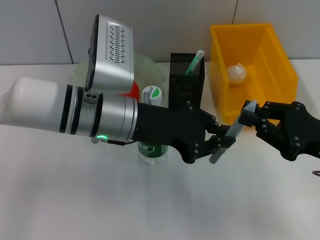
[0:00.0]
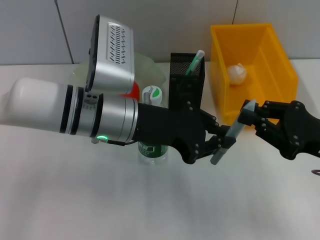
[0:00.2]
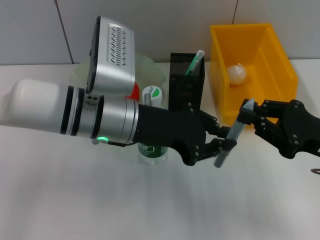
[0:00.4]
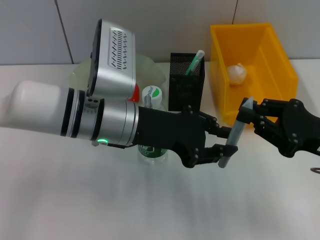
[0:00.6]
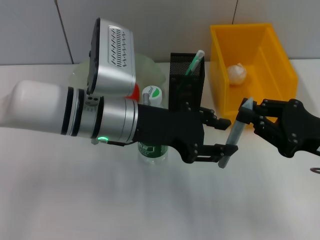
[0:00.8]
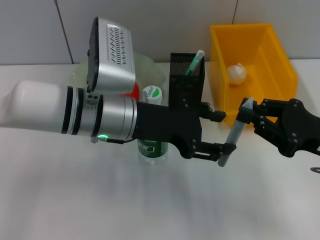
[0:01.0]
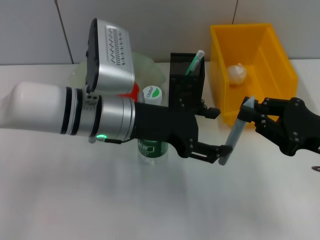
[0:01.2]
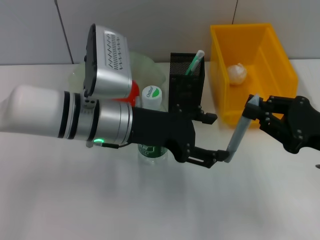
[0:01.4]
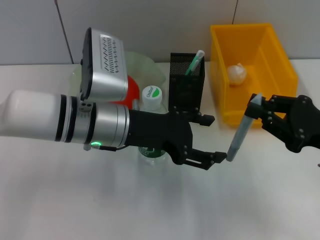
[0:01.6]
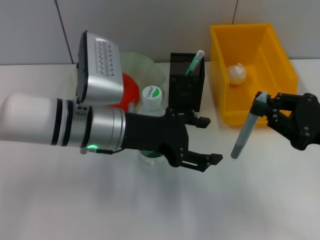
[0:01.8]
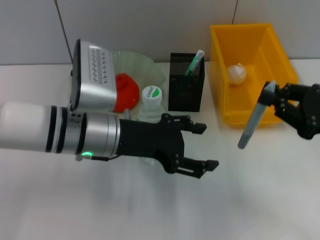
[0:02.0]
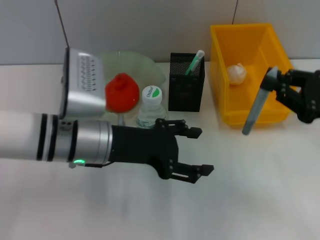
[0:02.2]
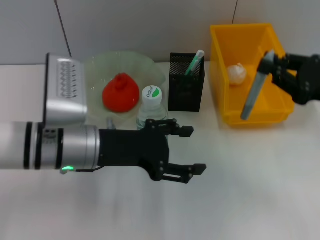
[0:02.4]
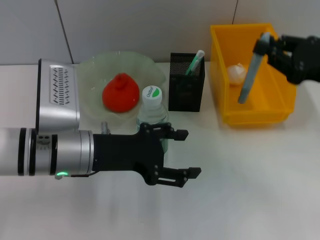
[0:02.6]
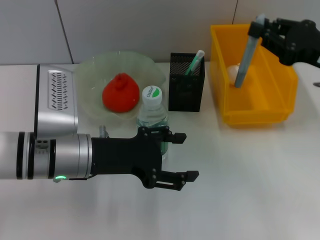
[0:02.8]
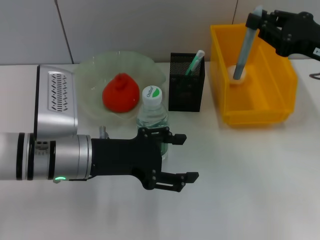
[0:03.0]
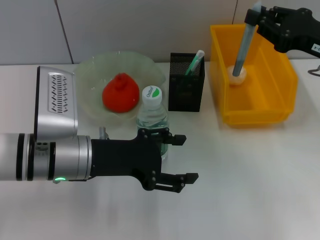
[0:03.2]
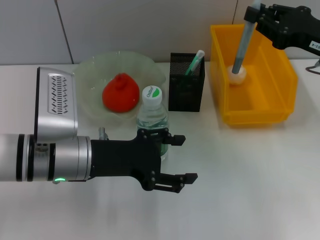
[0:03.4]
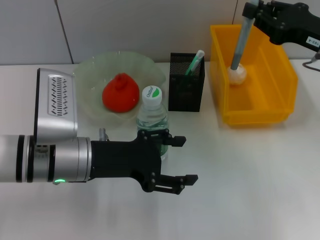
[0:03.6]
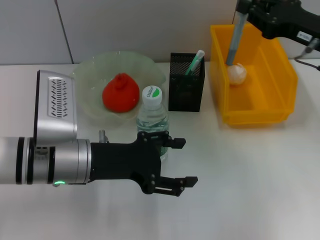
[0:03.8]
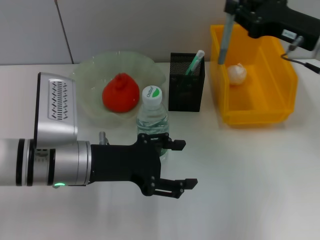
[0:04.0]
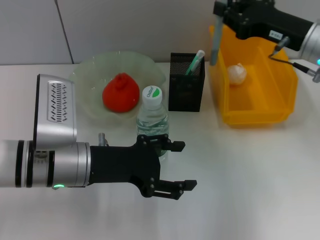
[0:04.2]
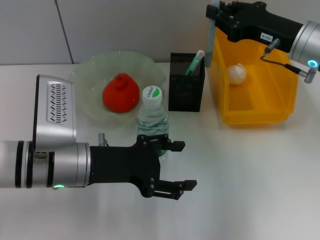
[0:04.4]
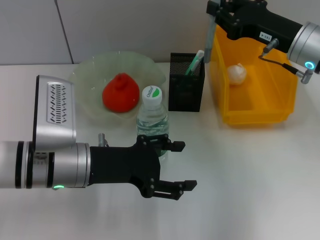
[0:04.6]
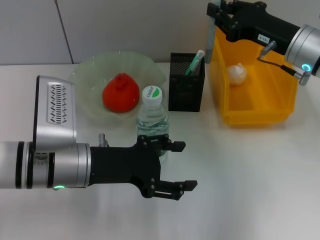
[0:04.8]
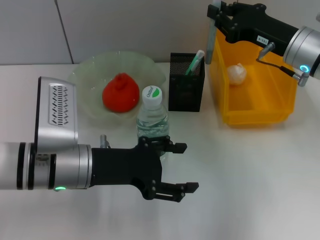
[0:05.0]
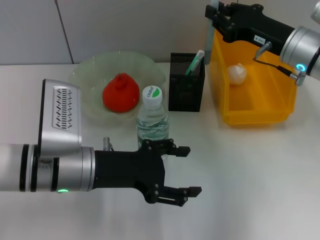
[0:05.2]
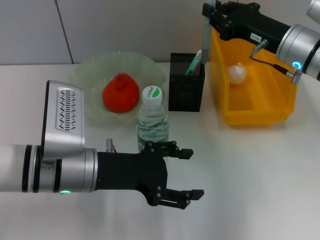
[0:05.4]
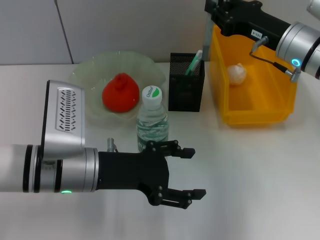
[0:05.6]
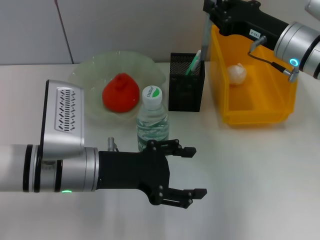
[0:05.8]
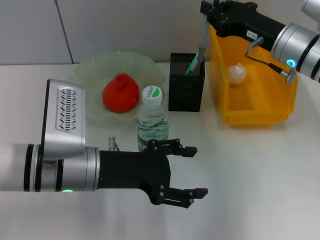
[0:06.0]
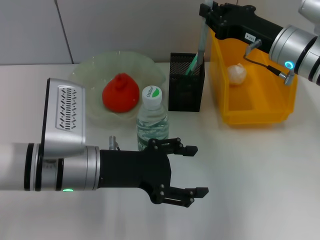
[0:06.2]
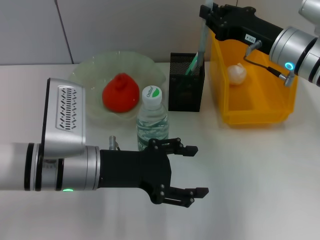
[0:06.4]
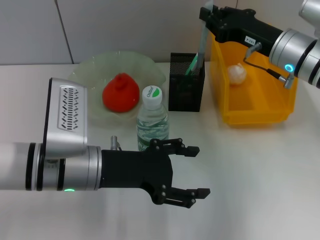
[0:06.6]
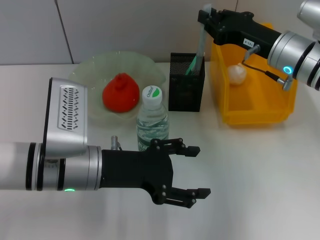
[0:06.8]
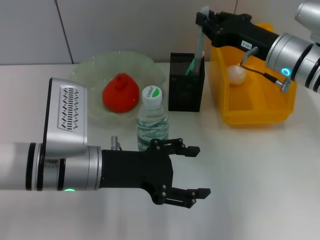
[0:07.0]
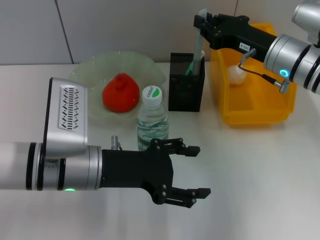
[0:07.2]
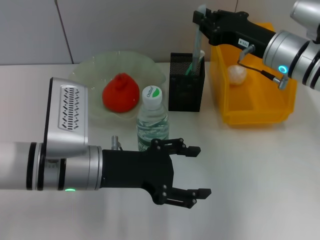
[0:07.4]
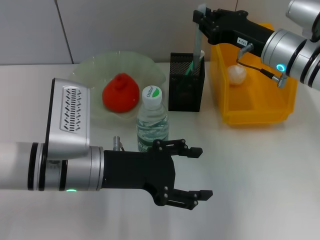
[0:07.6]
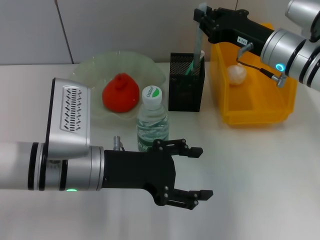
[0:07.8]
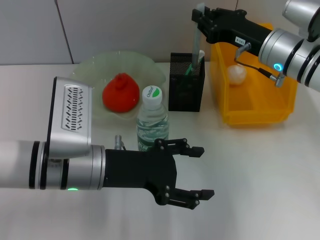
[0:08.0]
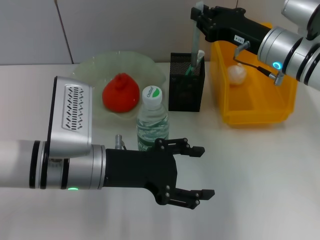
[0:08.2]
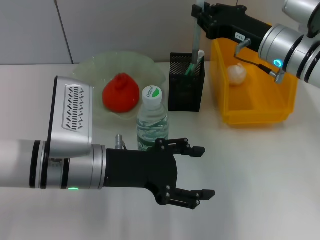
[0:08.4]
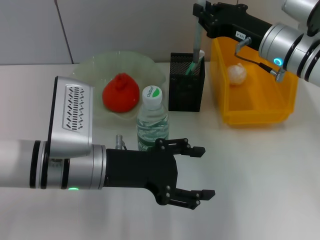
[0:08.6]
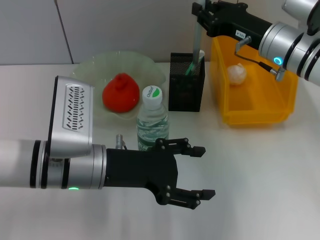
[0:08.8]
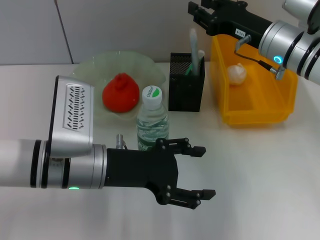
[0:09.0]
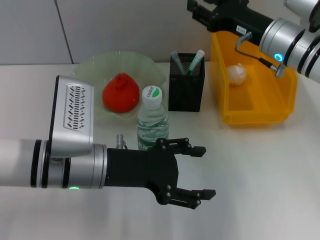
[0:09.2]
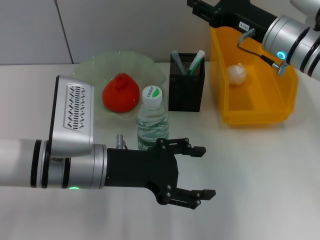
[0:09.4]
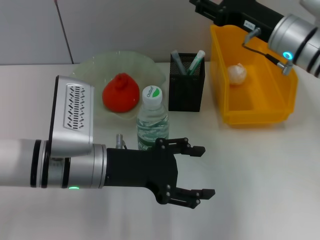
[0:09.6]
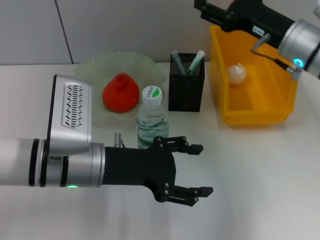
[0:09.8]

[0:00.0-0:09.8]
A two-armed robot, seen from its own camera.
Step, 0:01.2 to 0:09.4: Place the gray glue into the pen holder with the right hand.
0:00.0 to 0:01.4: The left gripper opens up.
0:01.4 to 0:02.8: The left gripper goes about 5 cm to the left, while the right gripper goes approximately 10 cm forward and upward.
0:02.8 to 0:04.2: The right gripper goes some 5 cm to the left and forward.
0:04.2 to 0:08.4: The grippers make only small movements.
0:08.4 to 0:09.8: The right gripper opens up.

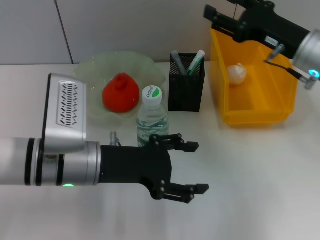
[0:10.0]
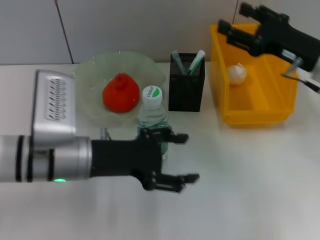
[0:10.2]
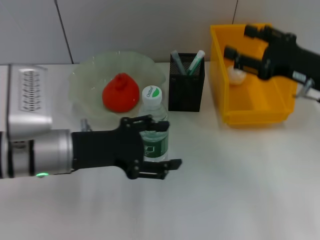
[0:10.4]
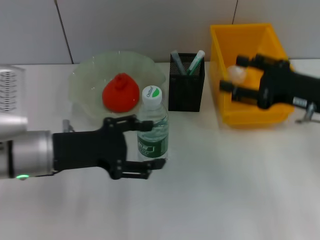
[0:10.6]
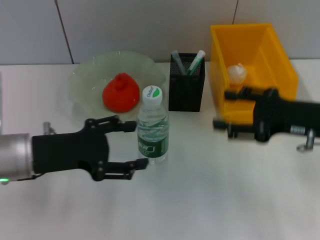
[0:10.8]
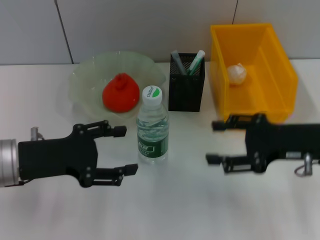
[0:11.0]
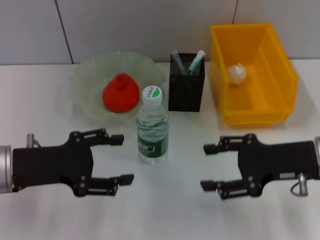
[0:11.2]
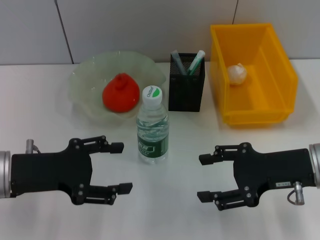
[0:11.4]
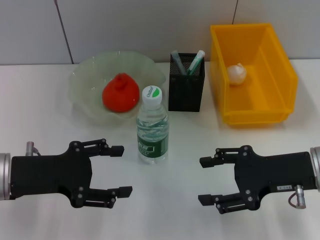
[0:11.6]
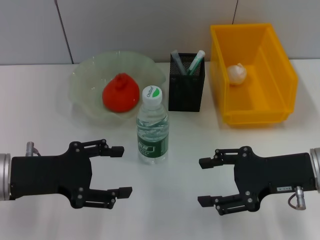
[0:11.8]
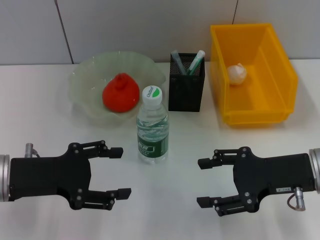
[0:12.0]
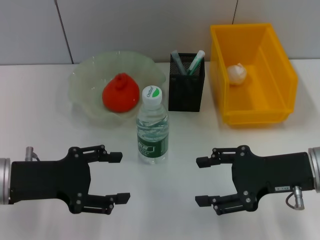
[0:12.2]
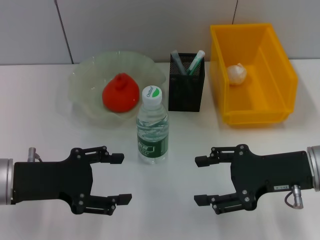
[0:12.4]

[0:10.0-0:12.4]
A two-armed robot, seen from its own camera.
0:10.0 to 0:11.2: The left gripper is displaced to the left by about 10 cm. The right gripper goes roughly 10 cm backward.
0:11.2 to 0:12.4: There are only small adjustments of the grippers.

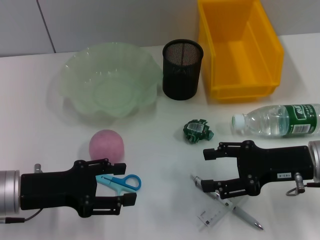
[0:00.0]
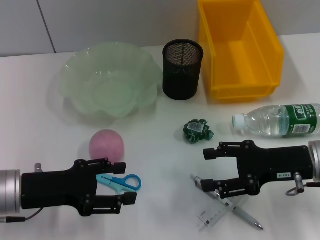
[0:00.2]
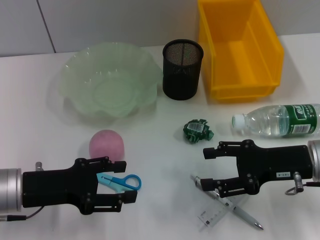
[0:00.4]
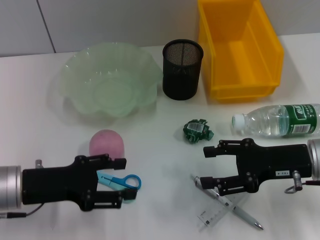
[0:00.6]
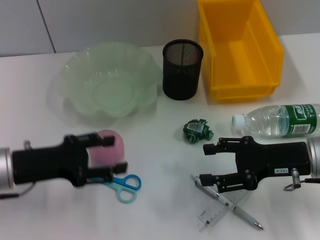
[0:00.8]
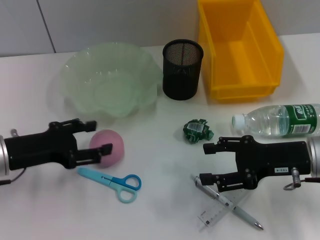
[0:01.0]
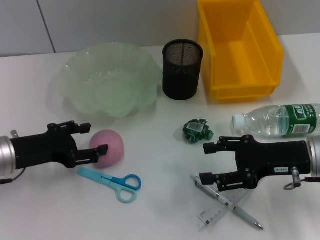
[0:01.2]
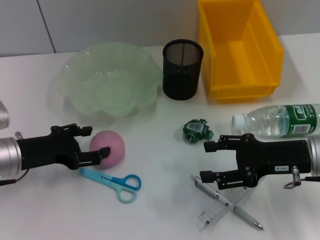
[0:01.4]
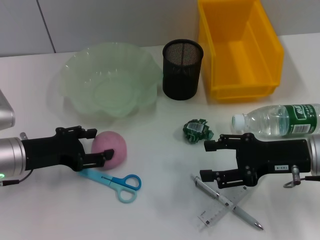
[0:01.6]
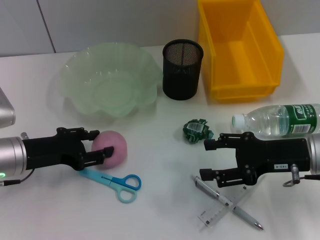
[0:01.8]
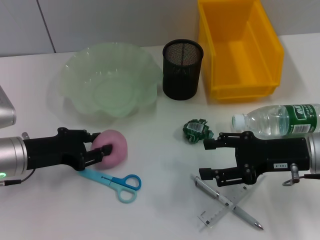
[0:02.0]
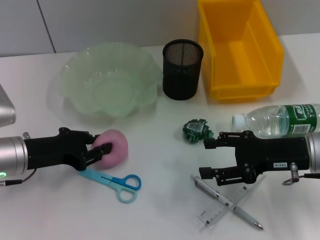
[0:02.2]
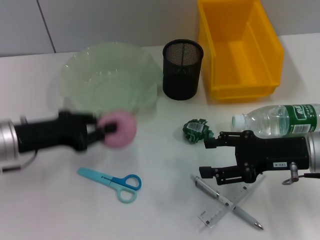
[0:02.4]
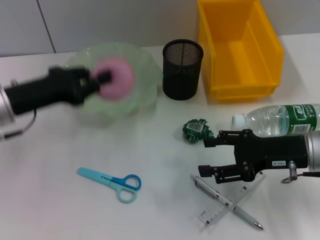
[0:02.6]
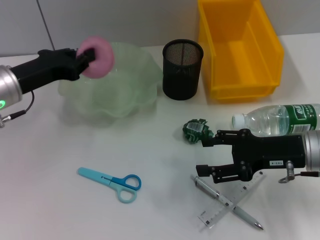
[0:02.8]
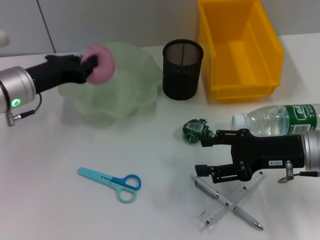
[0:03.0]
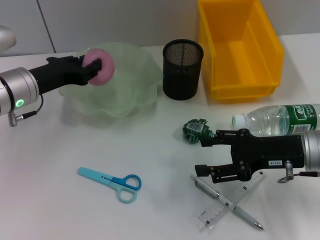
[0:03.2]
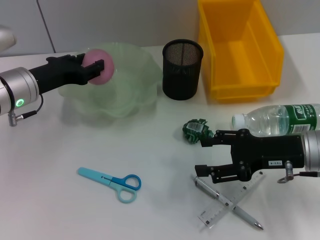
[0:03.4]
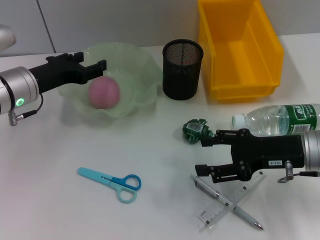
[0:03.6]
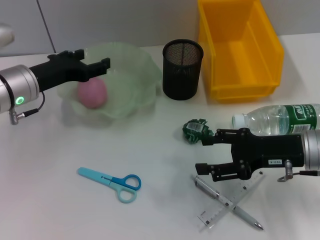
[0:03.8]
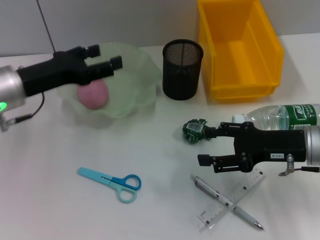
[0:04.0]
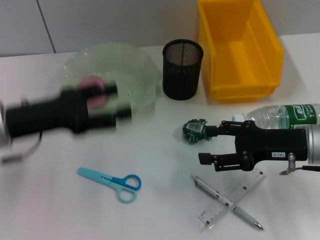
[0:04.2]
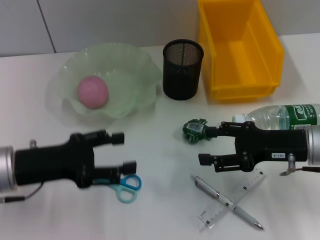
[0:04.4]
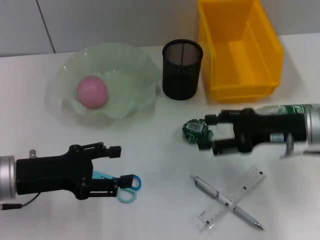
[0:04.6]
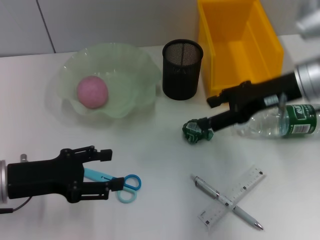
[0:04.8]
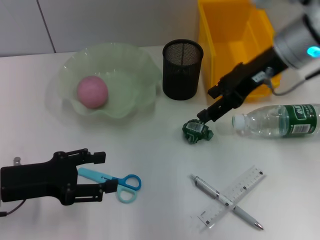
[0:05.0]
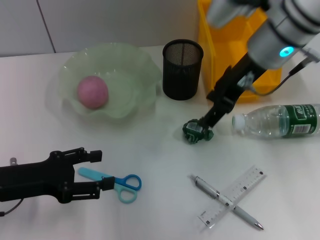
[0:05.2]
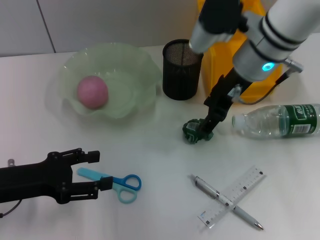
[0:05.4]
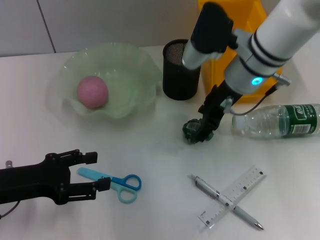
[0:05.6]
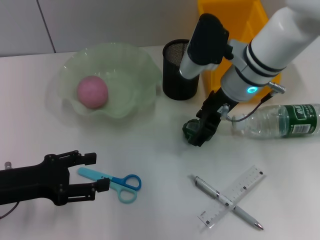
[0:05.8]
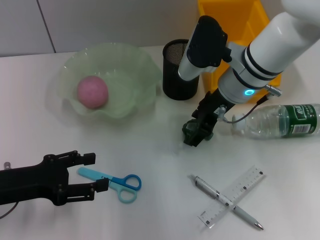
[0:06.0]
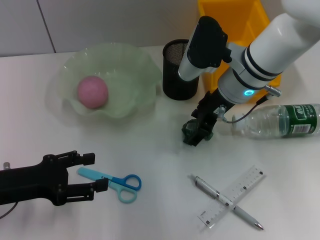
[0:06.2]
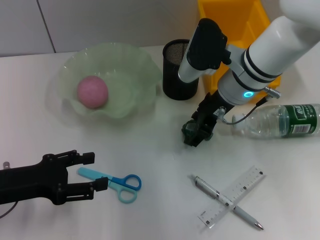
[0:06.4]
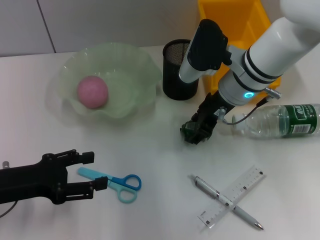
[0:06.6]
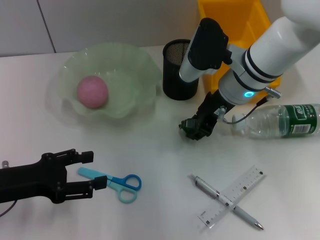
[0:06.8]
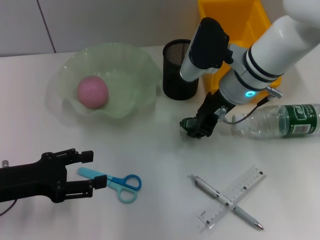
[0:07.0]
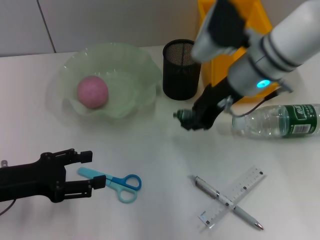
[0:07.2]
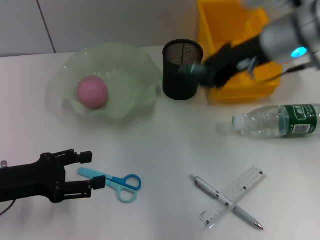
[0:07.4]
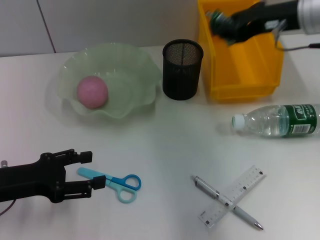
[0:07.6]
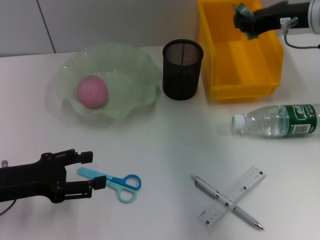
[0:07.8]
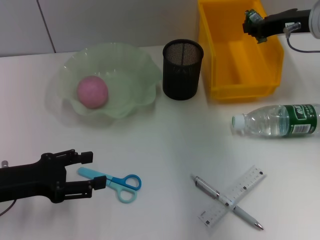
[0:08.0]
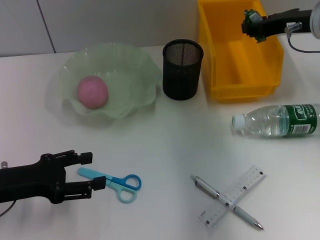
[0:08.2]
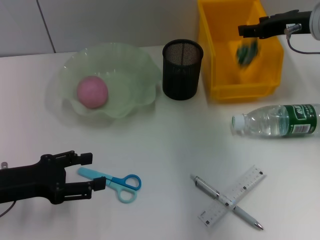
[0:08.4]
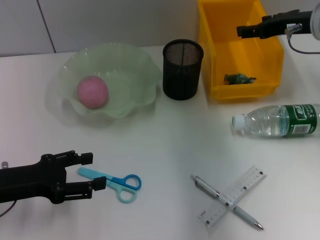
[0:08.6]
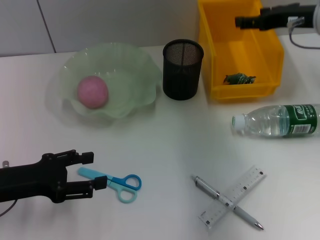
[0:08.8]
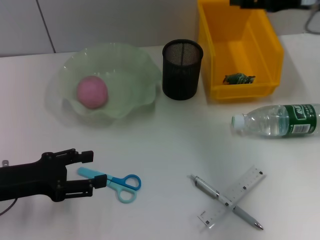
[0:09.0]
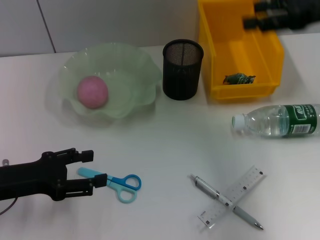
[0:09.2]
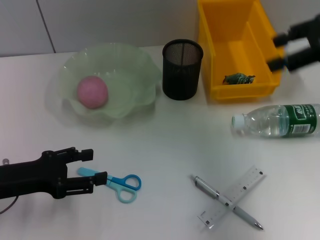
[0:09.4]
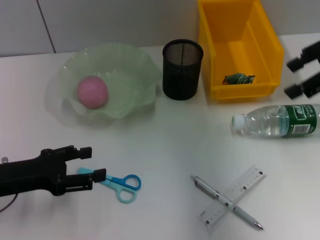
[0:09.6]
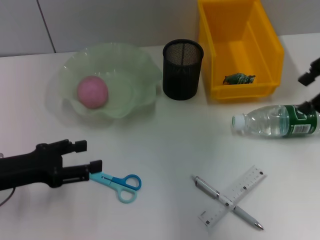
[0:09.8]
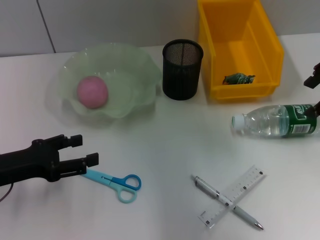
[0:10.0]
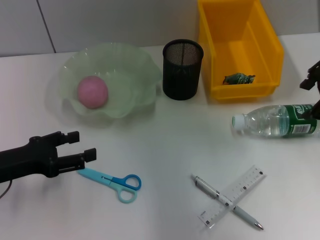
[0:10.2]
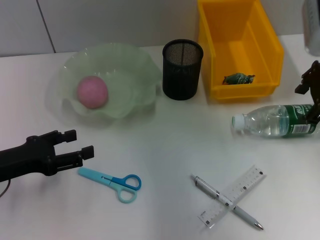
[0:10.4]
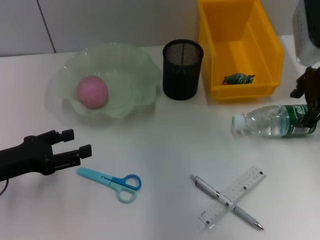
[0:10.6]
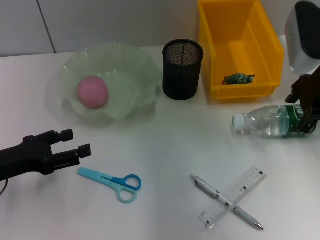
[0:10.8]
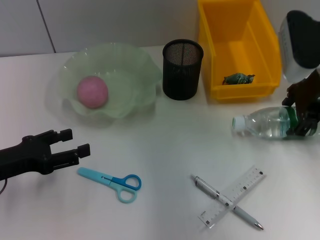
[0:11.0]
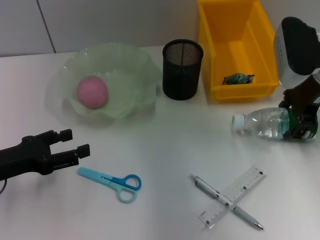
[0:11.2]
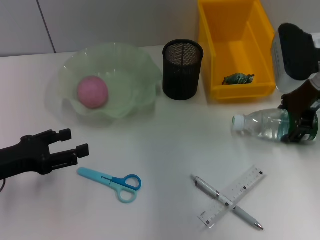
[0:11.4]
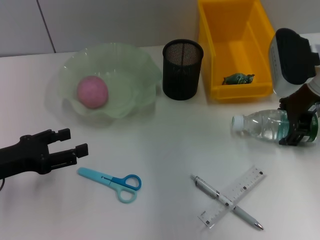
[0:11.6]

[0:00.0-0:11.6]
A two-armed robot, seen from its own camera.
Step, 0:00.0 to 0:02.0: Grab the peach with the left hand.
Step, 0:02.2 to 0:03.8: Place the peach into the fruit bowl with the left hand.
Step, 0:04.0 to 0:06.8: Grab the plastic with the right hand.
Step, 0:07.0 to 0:08.6: Place the plastic into the trash can with the right hand.
0:00.0 to 0:01.4: The left gripper moves about 5 cm.
0:01.4 to 0:02.8: The left gripper is displaced forward and upward by roughly 10 cm, and closes.
0:02.8 to 0:04.4: The left gripper moves backward, approximately 10 cm, and opens its fingers.
0:04.4 to 0:05.8: The right gripper travels to the left, forward and upward by some 20 cm. Meanwhile the left gripper changes place by approximately 5 cm.
0:05.8 to 0:07.2: The right gripper closes its fingers.
0:07.2 to 0:08.8: The right gripper travels to the right by roughly 15 cm, and opens.
0:10.2 to 0:11.6: The right gripper is displaced downward by roughly 10 cm.
